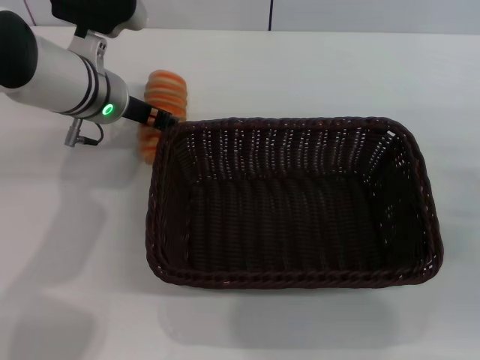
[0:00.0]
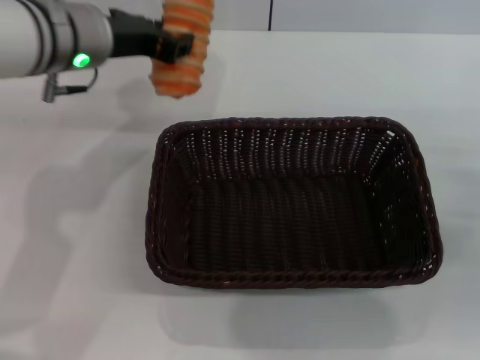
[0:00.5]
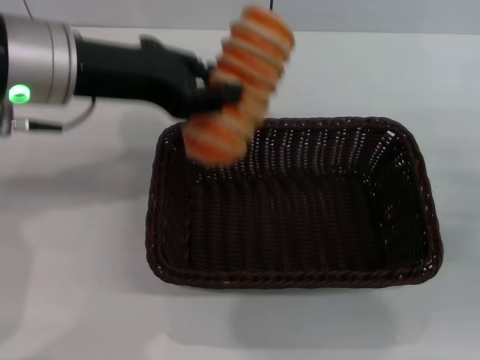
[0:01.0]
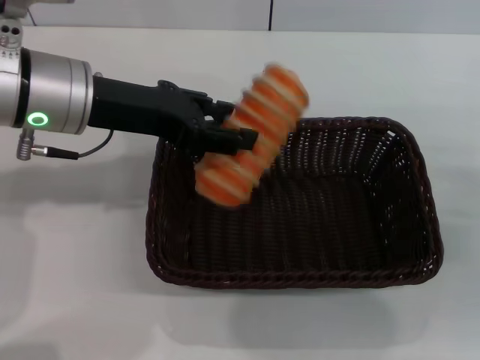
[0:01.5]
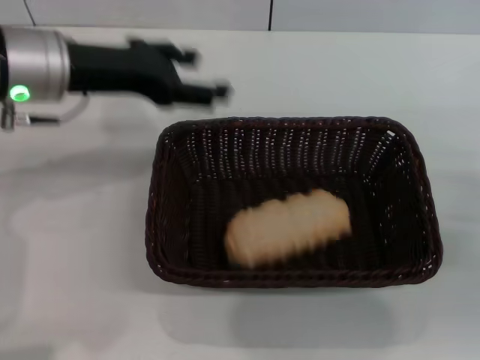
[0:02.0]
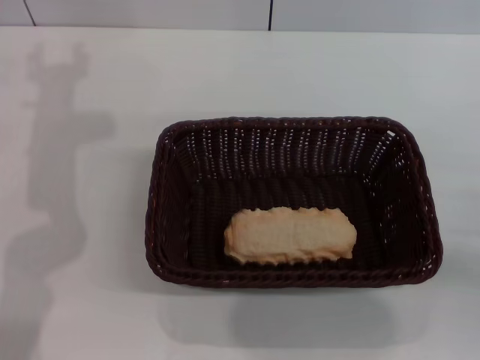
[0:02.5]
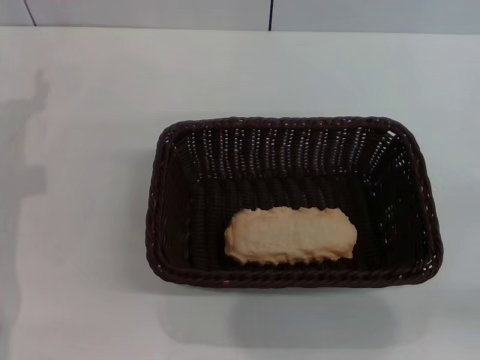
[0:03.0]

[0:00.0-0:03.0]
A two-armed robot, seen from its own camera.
Step, 0:00.5 to 0:01.5: Place the long bread into the dark basket with the left gripper.
0:00.0 to 0:01.5: The left gripper goes approximately 10 cm backward and upward, and closes its fingers.
0:01.5 to 0:03.0: The right gripper is displaced backward by roughly 5 cm, while the left gripper goes approximately 15 cm to the left and downward, and opens.
